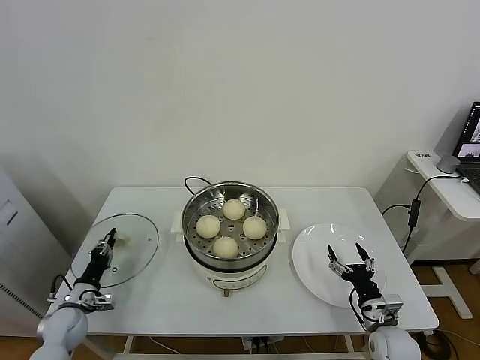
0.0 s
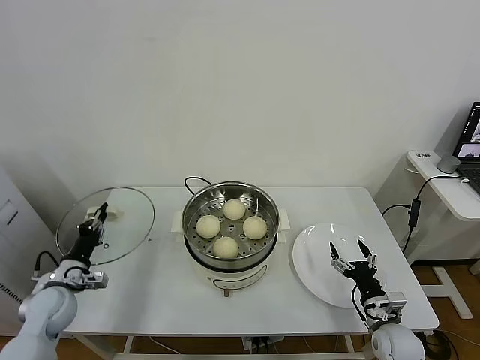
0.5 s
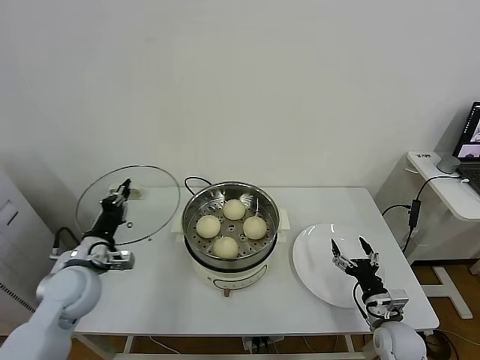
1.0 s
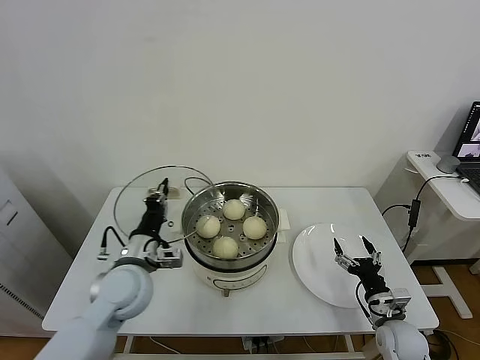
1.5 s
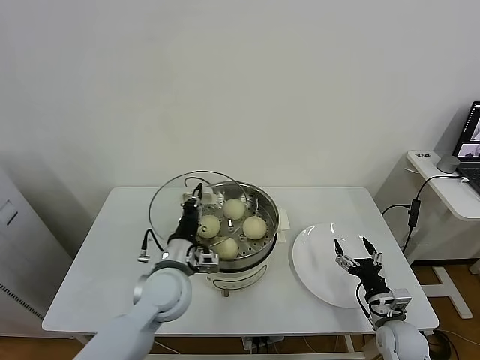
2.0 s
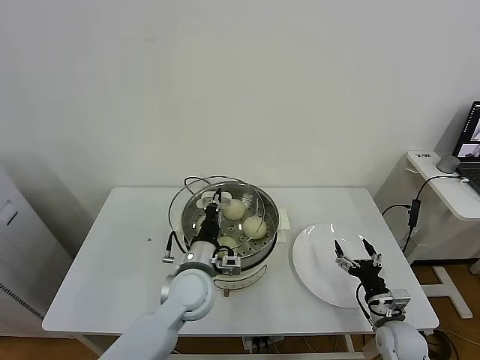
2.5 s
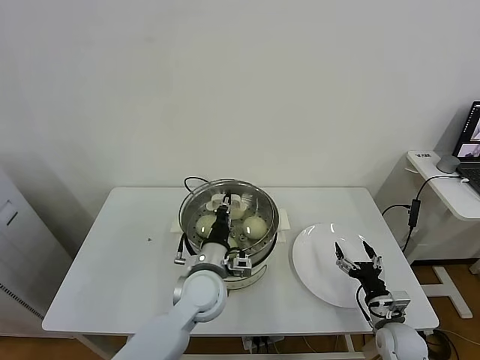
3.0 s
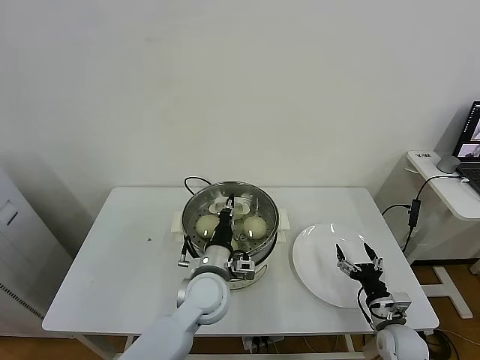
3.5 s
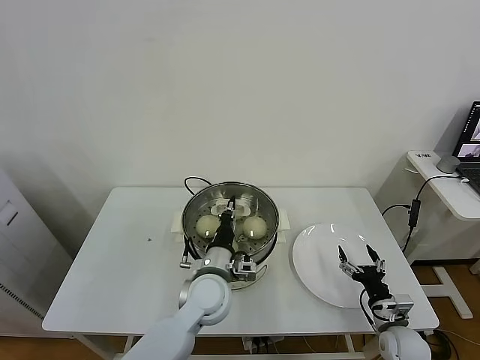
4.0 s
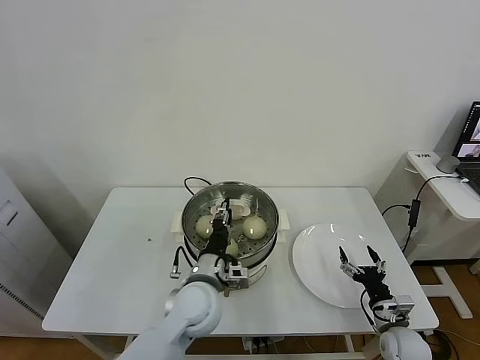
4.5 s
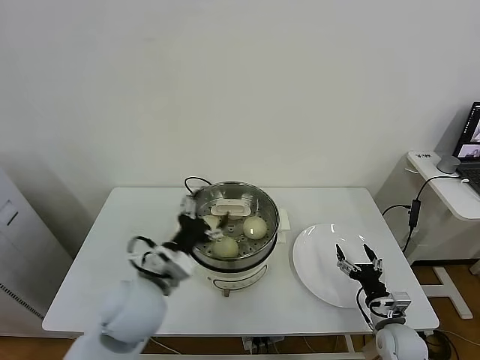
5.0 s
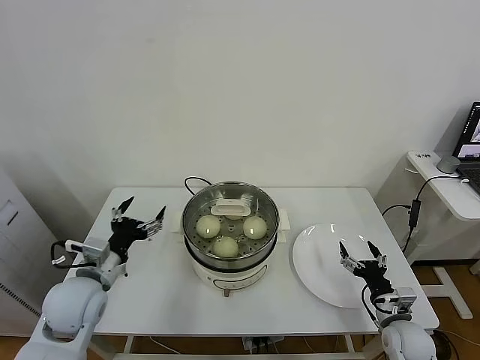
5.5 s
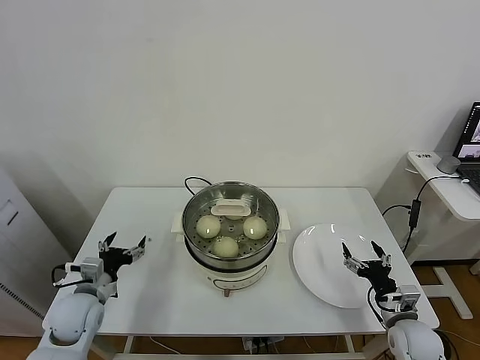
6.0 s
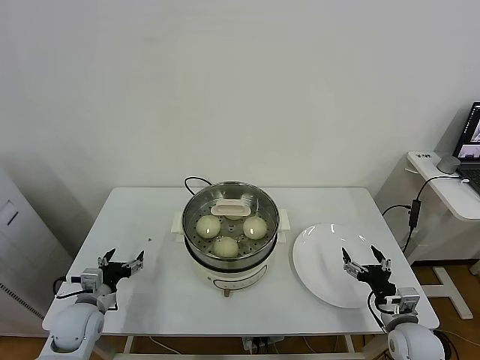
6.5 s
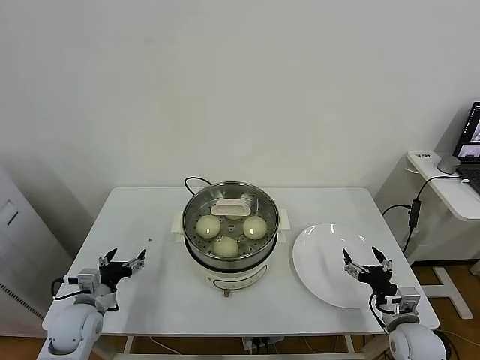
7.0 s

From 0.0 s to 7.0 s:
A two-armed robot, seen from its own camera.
Task of the whole recording: take steamed baozi put them in steamer.
Step, from 0.5 s to 4.5 s: Place the pot lid on the steamer with left gripper.
From 0.0 s to 2.0 s: The left gripper travels to the right and upward by some 35 cm.
From 2.0 s to 3.5 s: The left gripper moves to the right, approximately 10 cm.
From 3.5 s to 5.0 s: The left gripper heads to the left, upward and backward, covering some 15 cm, and opens up.
From 5.0 s to 7.0 s: The left gripper travels to the left and downward by approximately 25 cm.

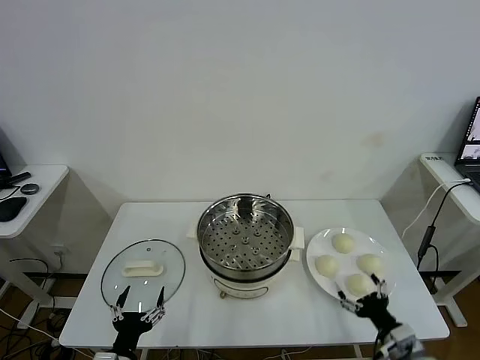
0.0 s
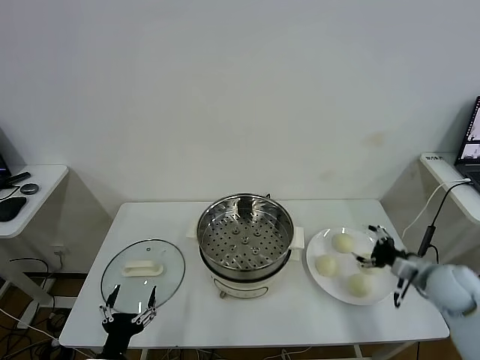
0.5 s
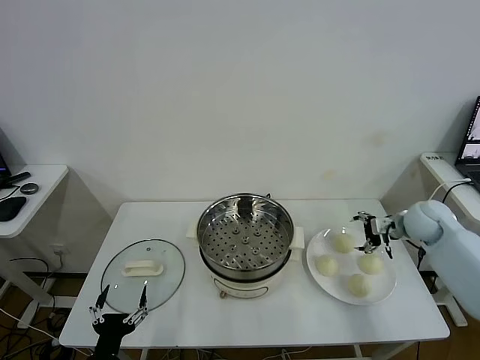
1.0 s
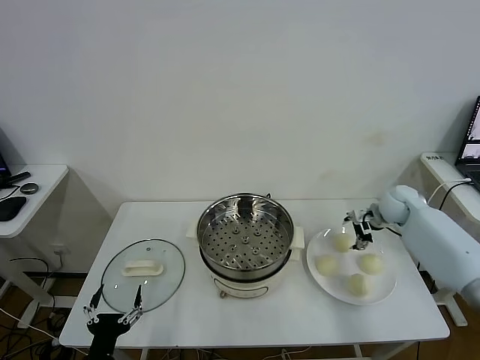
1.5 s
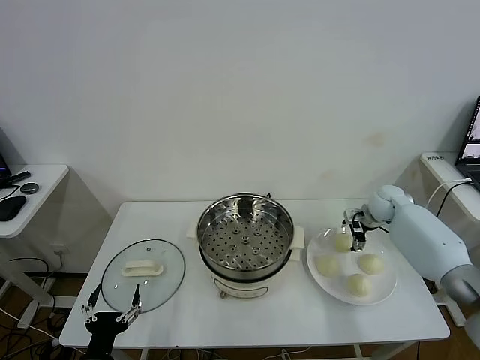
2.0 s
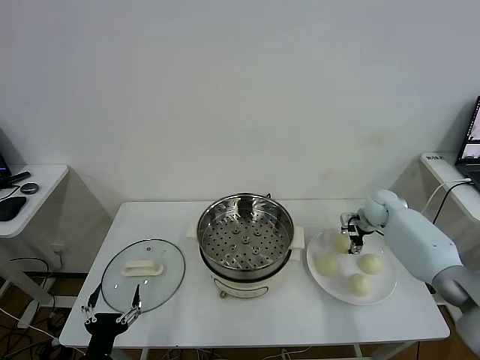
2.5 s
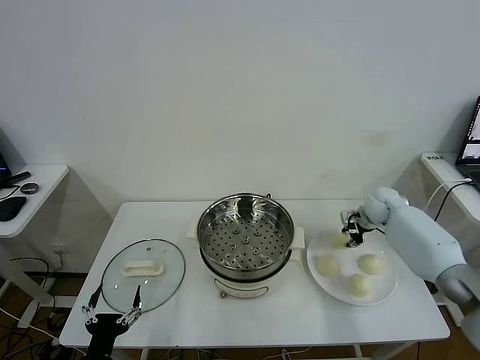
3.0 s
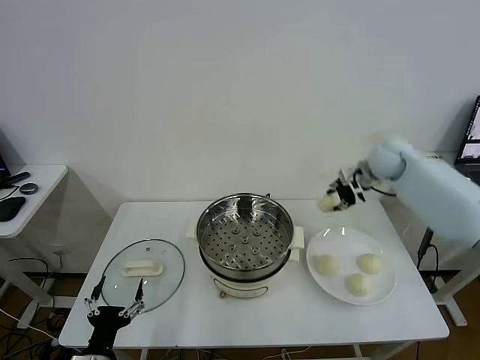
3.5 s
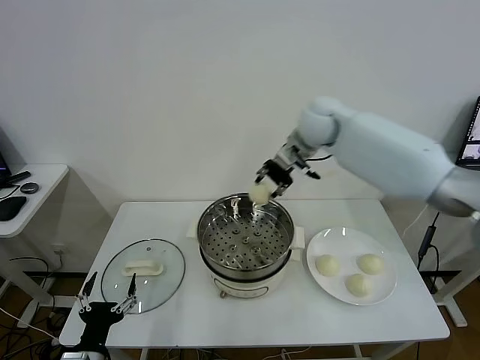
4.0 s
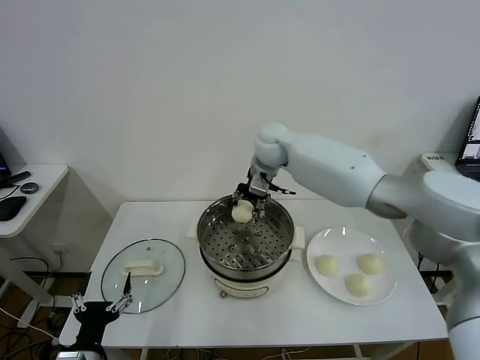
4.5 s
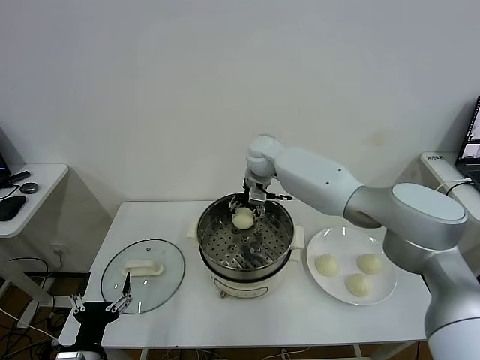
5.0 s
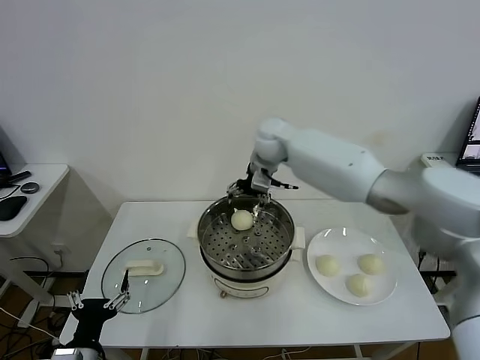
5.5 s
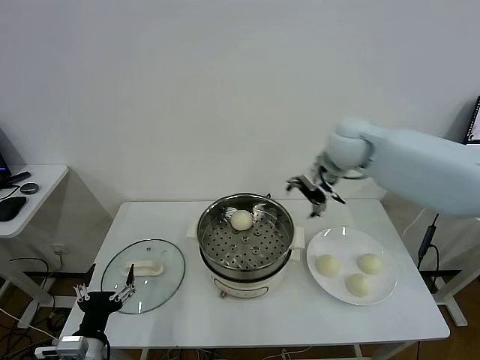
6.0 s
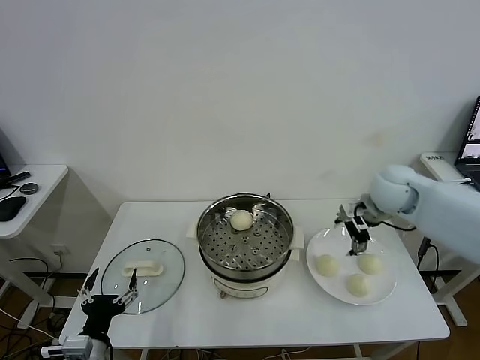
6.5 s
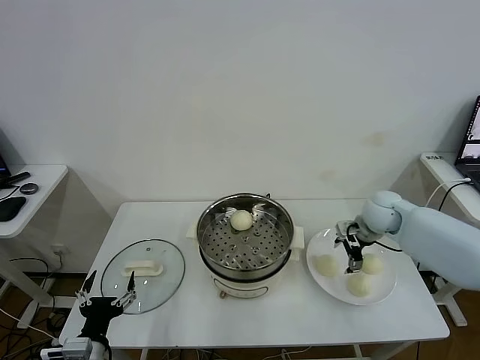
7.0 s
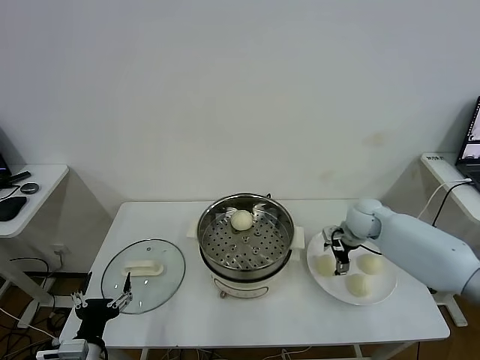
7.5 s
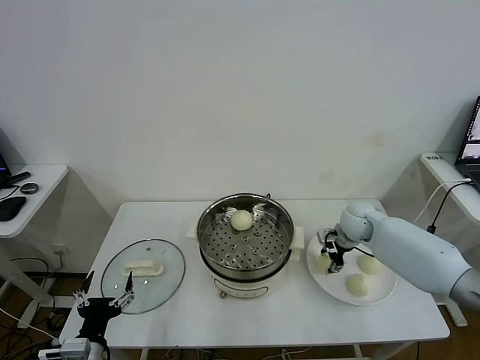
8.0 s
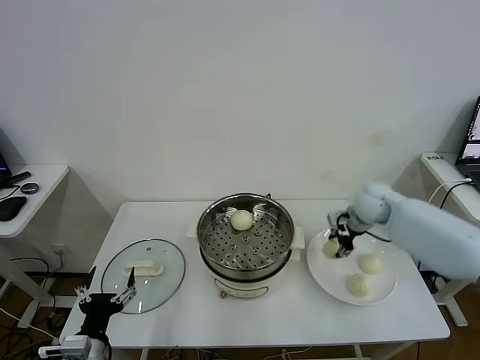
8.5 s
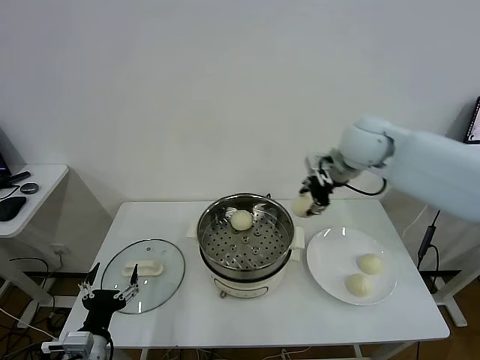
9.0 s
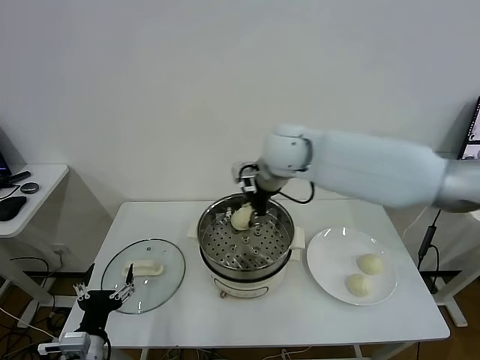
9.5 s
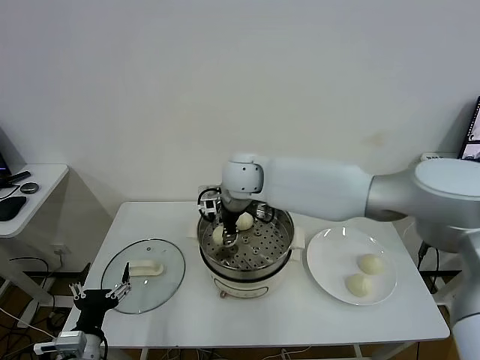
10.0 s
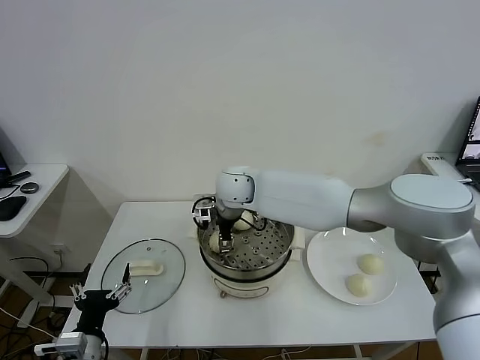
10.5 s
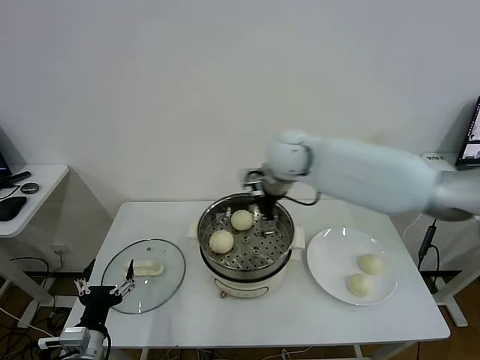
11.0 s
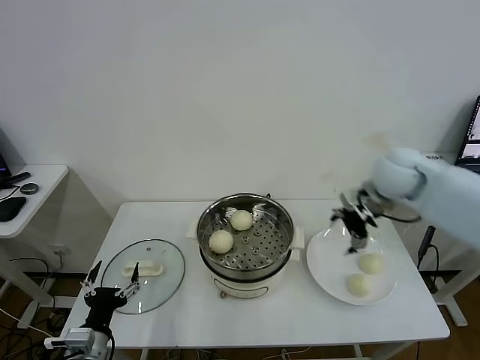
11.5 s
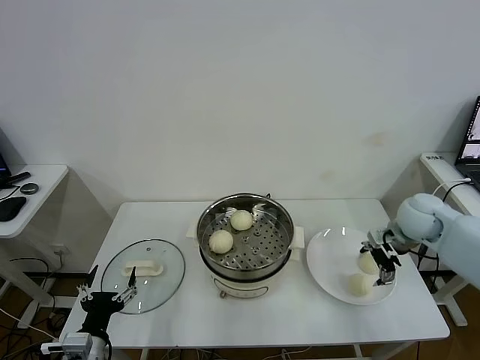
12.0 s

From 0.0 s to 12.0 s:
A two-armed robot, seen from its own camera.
Task of the whole recording: take steamed baozi put them in steamer.
Step, from 0.0 s to 2.5 s: Grasp the baozi in the plate with right gripper.
Step, from 3.0 s to 5.0 s: Place the baozi on the steamer with right gripper.
Step, from 5.5 s to 7.5 s: Grasp the baozi in the plate with right gripper.
Step, from 8.0 s to 10.5 s: Place the baozi on the steamer with right gripper.
From 2.0 s to 4.0 s: The right gripper travels to the left and upward by about 35 cm, and closes.
From 4.0 s to 6.0 s: The right gripper goes about 10 cm to the right and backward, and opens.
From 6.0 s to 8.0 s: The right gripper moves downward, some 25 cm, and closes up.
From 8.0 s to 10.0 s: The right gripper is displaced to the left and upward by about 35 cm.
From 10.0 s to 12.0 s: The right gripper goes approximately 40 cm to the right, and opens its fingers.

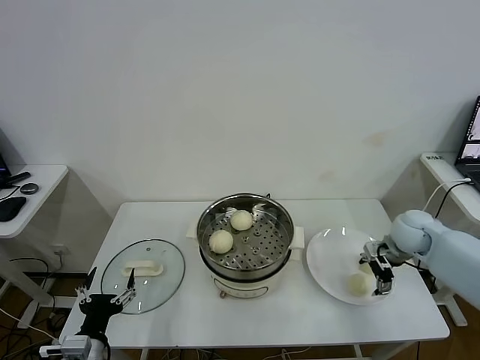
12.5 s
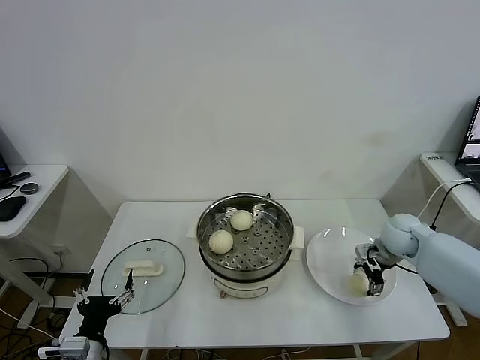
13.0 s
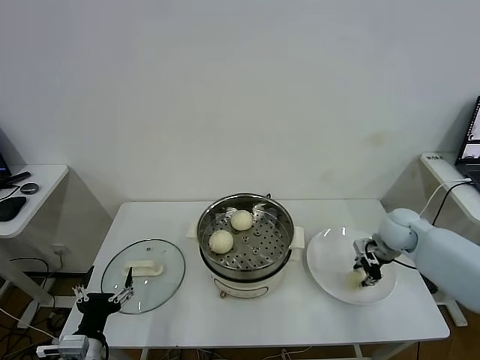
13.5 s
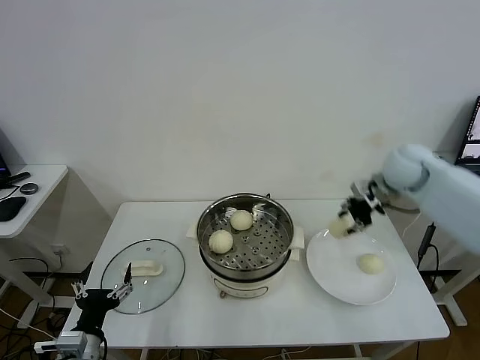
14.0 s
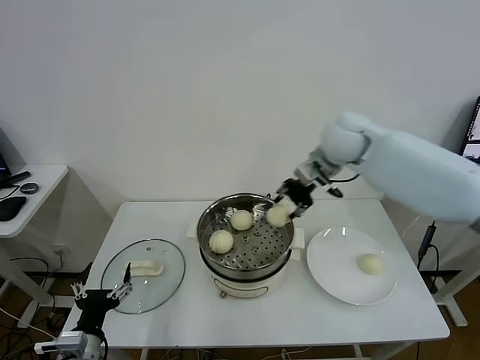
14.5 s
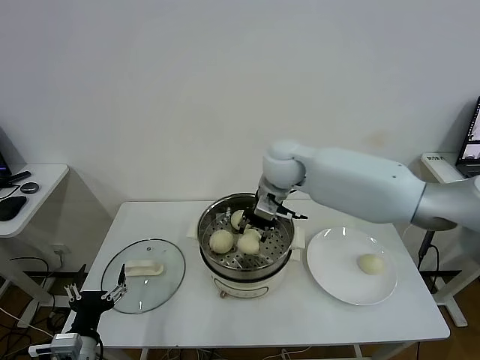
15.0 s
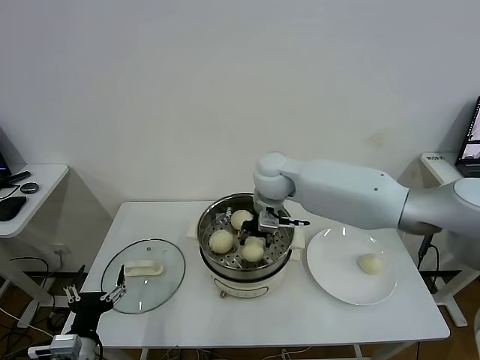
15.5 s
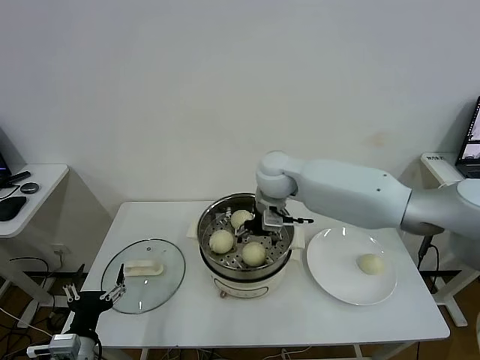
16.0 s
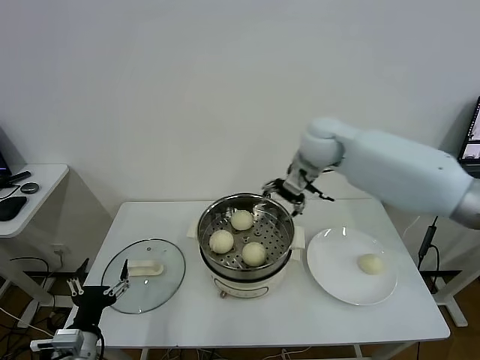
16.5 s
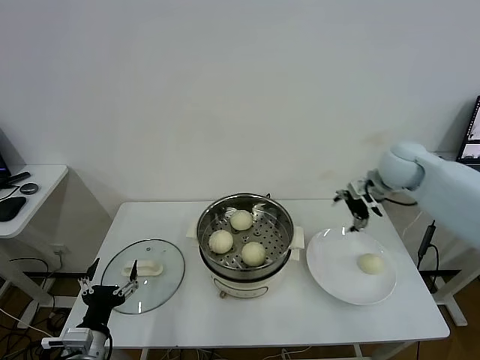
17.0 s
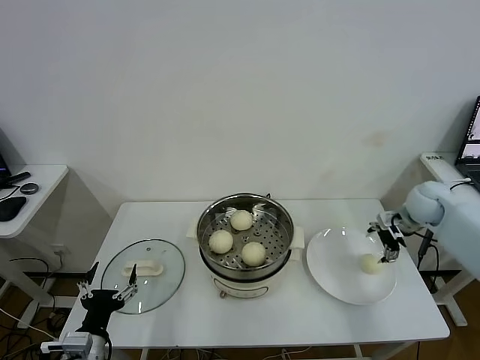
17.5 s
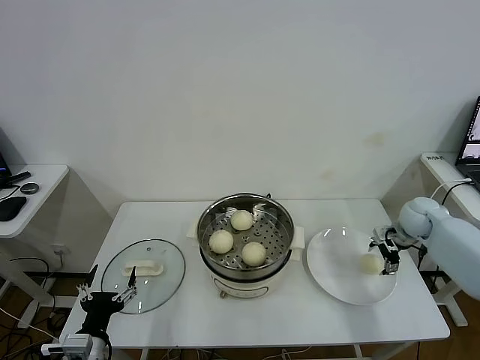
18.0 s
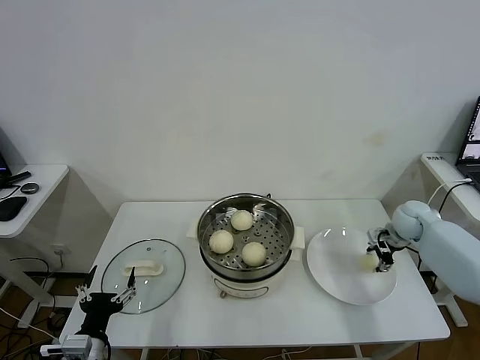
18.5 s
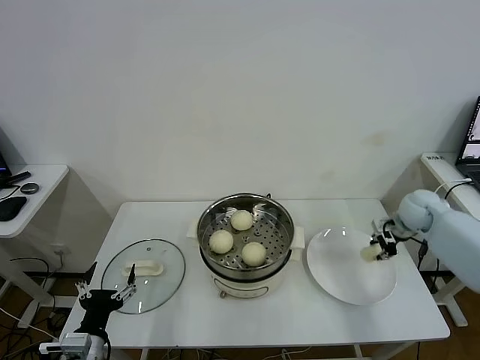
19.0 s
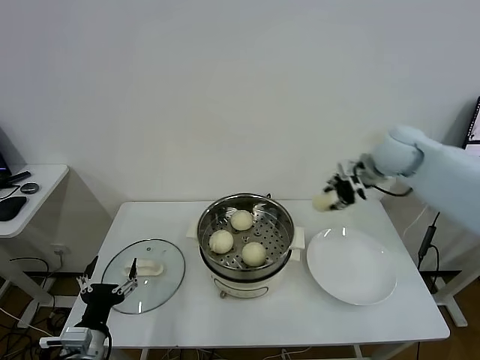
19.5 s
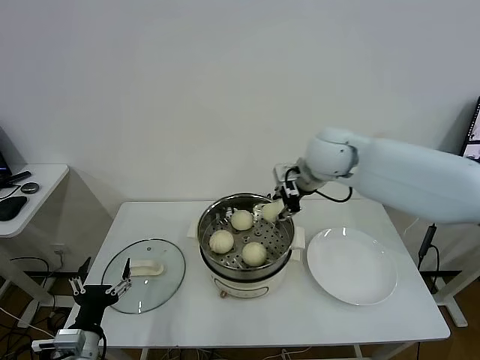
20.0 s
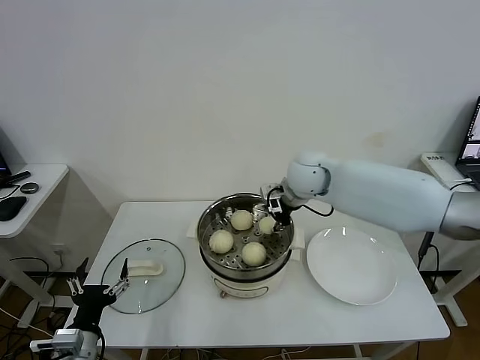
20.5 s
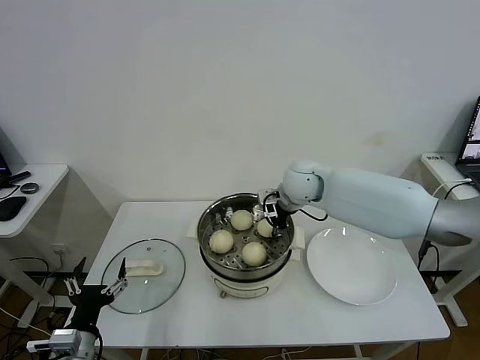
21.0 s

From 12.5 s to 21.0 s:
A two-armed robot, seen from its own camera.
Task of the whole recording: take steamed baozi put them in steamer.
Step, from 13.5 s to 16.0 s: Place the baozi on the steamer with right gripper.
Step, from 16.5 s to 18.0 s: Grasp the baozi in the plate with right gripper.
From 12.5 s to 14.5 s: The right gripper shifts roughly 30 cm upward and to the left, and closes its fingers.
From 14.5 s to 16.5 s: The right gripper goes to the left and returns, roughly 15 cm each way, and opens.
From 16.5 s to 19.0 s: The right gripper travels to the right and downward by approximately 35 cm, and closes its fingers.
From 19.0 s to 21.0 s: The right gripper goes about 30 cm to the left, and opens its fingers.
